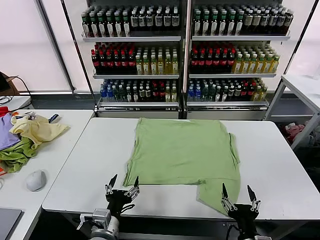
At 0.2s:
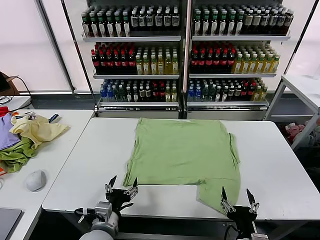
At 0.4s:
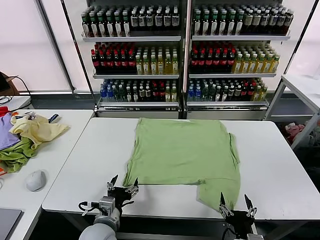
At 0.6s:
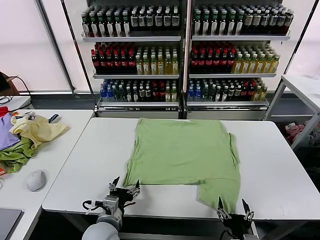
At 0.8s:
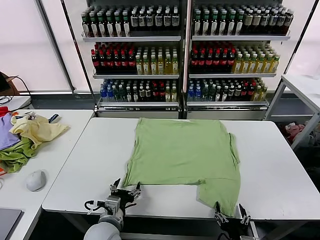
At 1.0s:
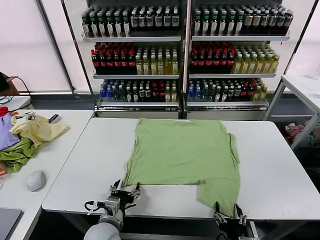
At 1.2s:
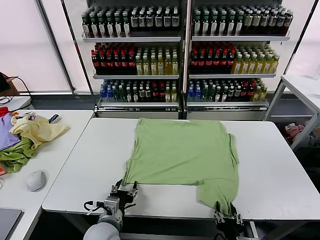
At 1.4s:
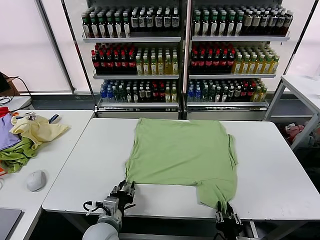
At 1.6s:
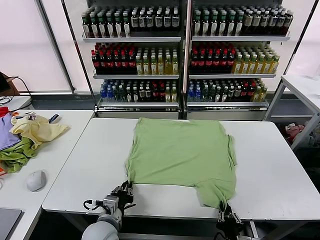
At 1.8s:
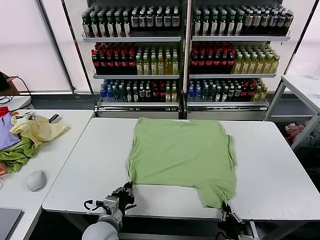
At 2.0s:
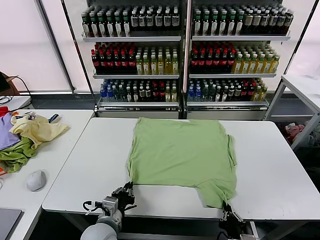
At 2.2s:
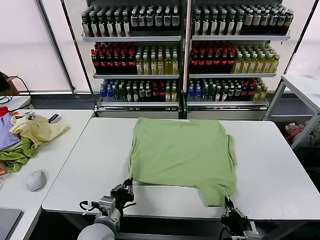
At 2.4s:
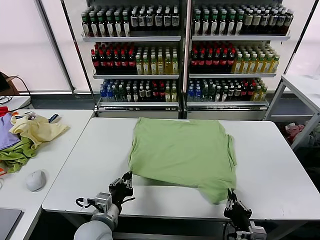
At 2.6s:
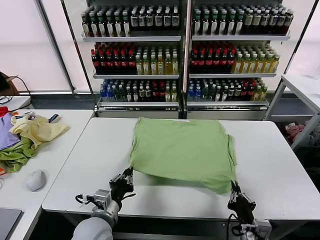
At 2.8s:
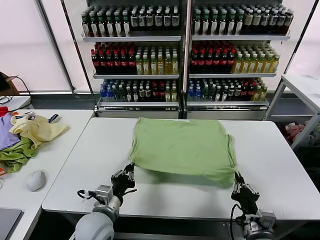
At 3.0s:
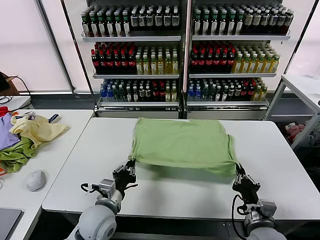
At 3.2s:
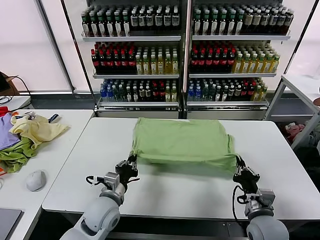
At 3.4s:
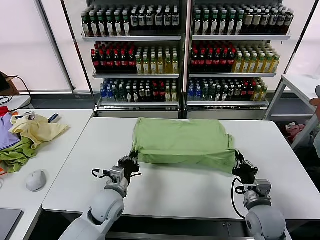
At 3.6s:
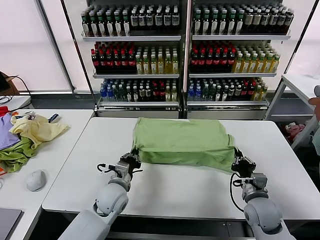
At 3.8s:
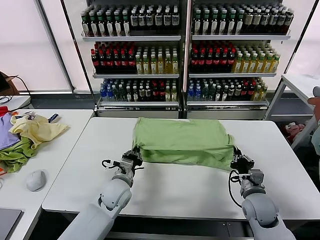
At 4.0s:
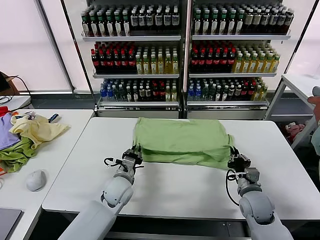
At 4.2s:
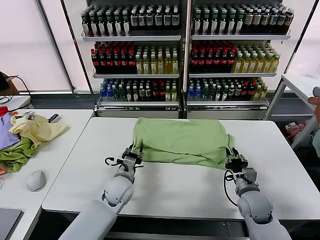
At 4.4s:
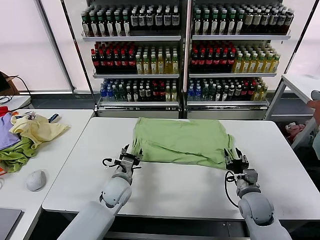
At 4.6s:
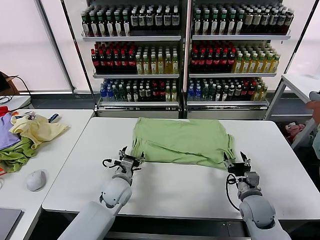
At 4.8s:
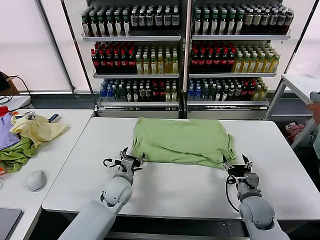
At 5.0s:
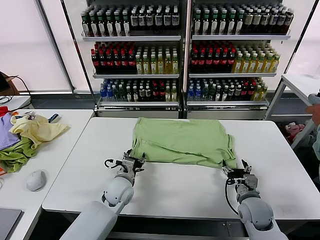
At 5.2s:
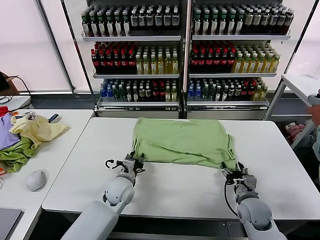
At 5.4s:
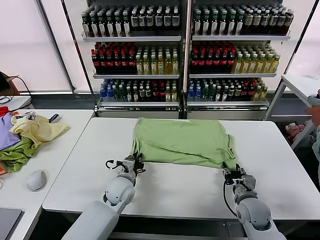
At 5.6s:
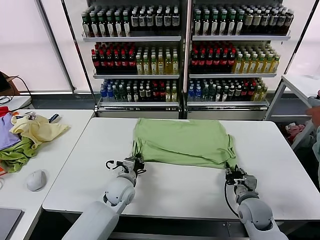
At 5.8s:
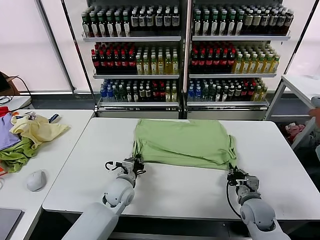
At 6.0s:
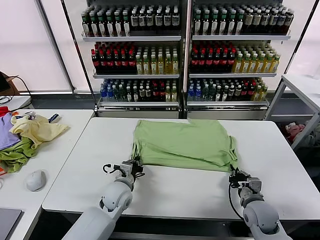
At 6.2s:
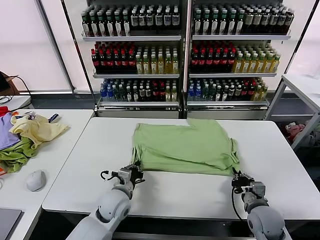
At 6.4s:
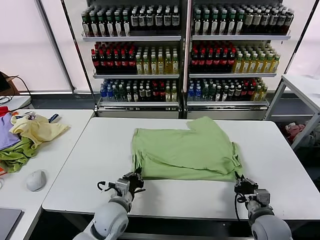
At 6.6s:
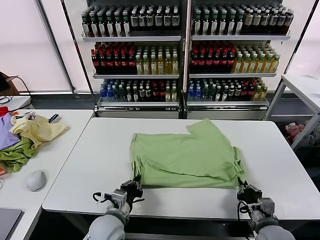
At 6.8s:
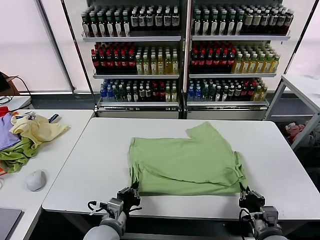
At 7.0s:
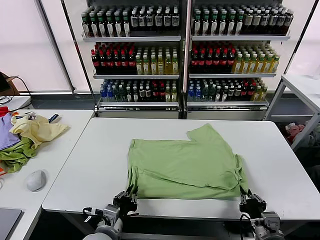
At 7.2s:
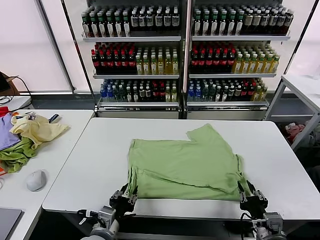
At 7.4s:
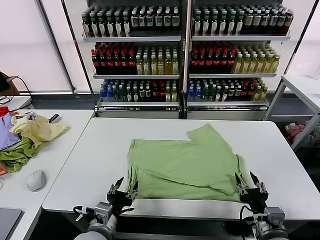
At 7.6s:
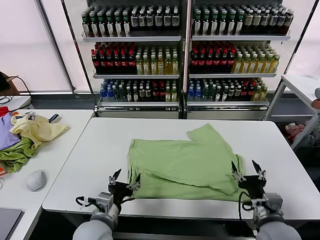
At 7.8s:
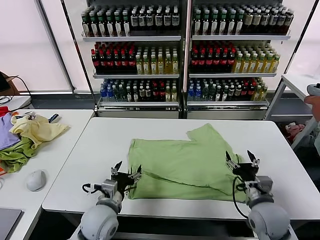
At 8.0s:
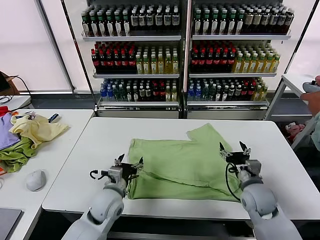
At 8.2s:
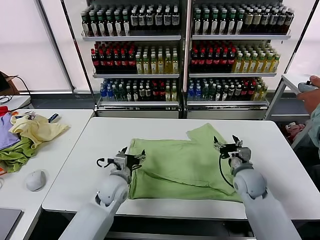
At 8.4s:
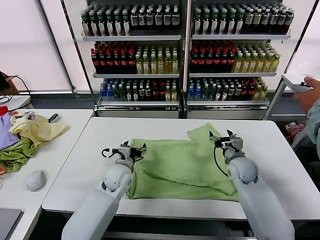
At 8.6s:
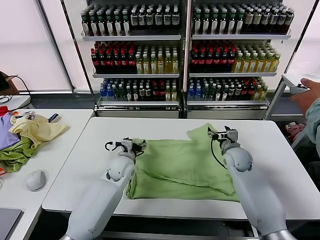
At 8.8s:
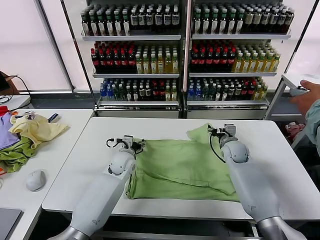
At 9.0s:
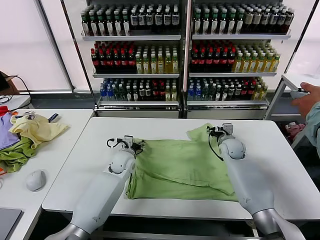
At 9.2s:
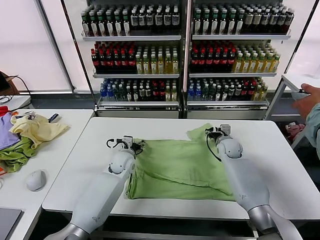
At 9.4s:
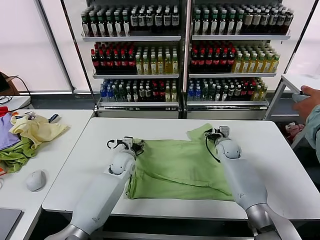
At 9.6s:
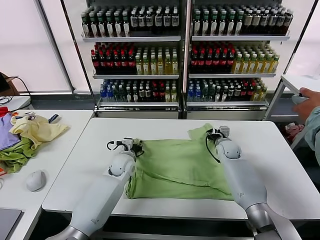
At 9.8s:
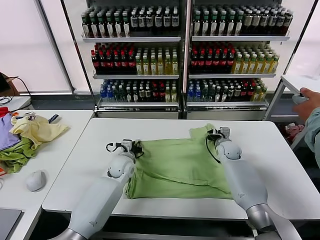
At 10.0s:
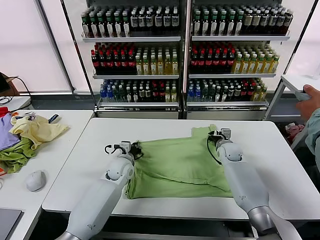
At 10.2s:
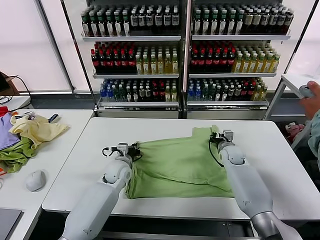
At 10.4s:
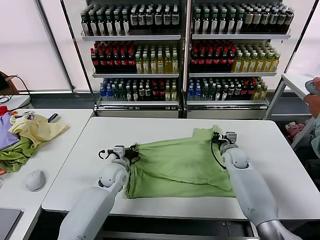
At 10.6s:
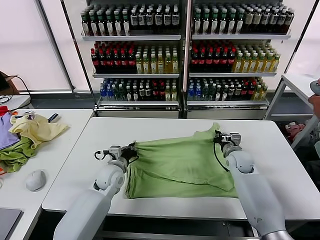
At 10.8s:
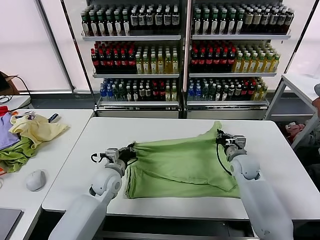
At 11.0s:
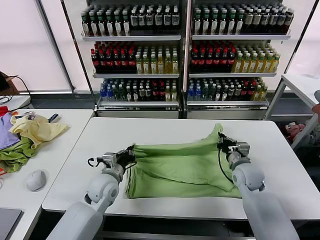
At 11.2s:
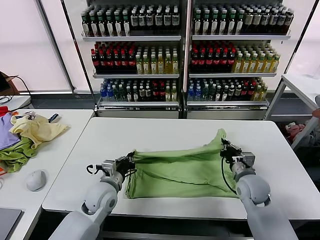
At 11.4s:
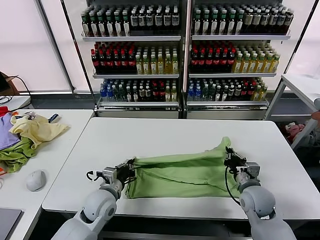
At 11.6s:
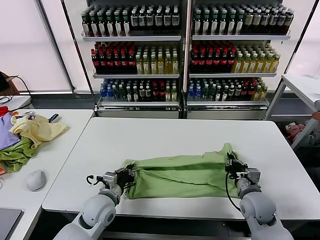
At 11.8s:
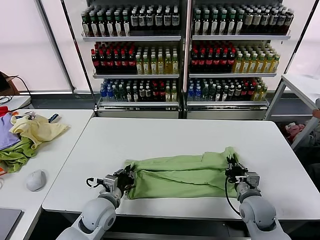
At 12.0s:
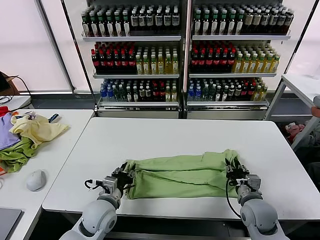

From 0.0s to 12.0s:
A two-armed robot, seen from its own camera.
Task of the whole recording: fold and organize the clothes.
Step, from 0.0s to 1.8s: use both grippers simultaneously to clamp the lower edge of the clothing fabric.
Step, from 2.0s to 4.2s: use both grippers to drag the lower edge of the fabric forward and fold it over the upper edge.
Step, from 4.6s to 7.0s: Drag the clothes downward with both gripper.
Step, from 7.2s to 10.0s: use both grippers simultaneously to clamp the upper edge of the clothing fabric.
From 1.6s to 3.0s: The right gripper moves forward, to the right and upward, roughly 15 cm, while the left gripper moves about 5 cm.
From 3.0s to 4.4s: The grippers both shift forward by some 10 cm. The left gripper opens its fingers; the right gripper opens.
From 4.4s to 6.0s: The left gripper closes. The right gripper closes up.
From 6.0s to 7.6s: The left gripper moves backward, some 15 cm, and opens its fingers. Meanwhile the right gripper goes some 10 cm upward and backward, and opens up.
From 7.6s to 9.0s: Both grippers travel together forward, some 30 cm.
From 9.0s to 10.4s: The right gripper closes its fingers. Meanwhile the left gripper ends up some 5 cm from where it was, and closes up.
From 10.4s to 12.0s: Both grippers move backward, roughly 20 cm. The right gripper opens up; the left gripper opens.

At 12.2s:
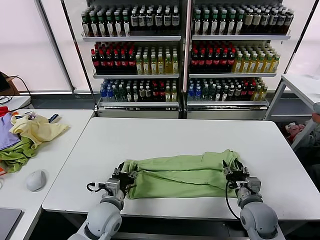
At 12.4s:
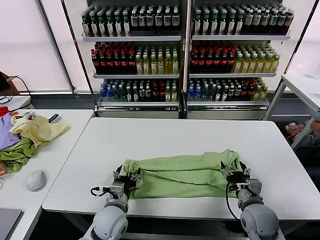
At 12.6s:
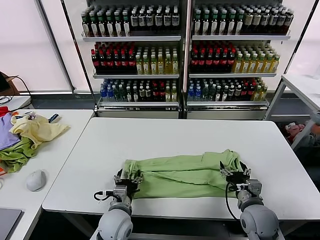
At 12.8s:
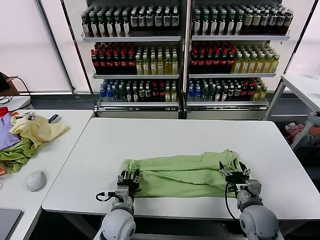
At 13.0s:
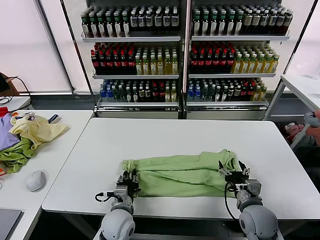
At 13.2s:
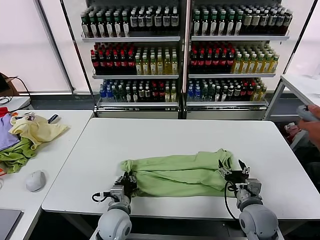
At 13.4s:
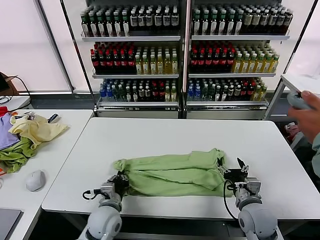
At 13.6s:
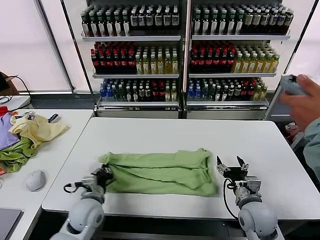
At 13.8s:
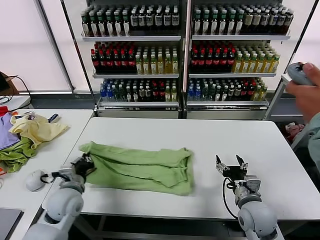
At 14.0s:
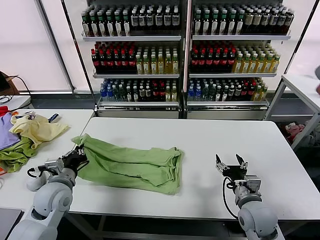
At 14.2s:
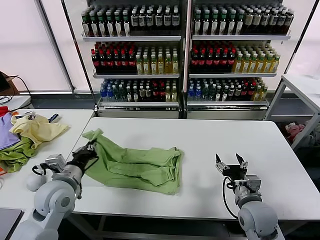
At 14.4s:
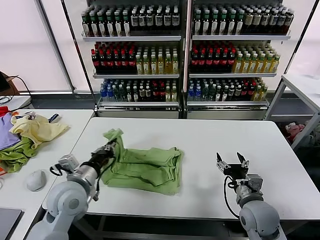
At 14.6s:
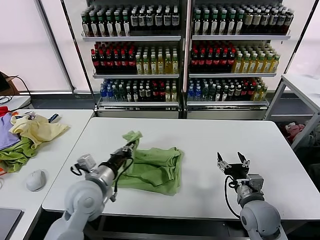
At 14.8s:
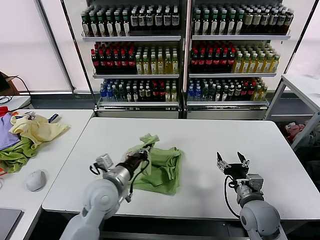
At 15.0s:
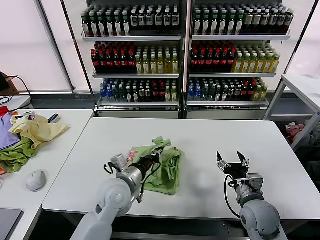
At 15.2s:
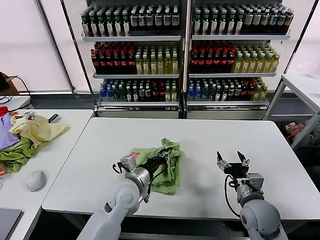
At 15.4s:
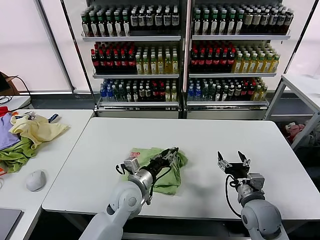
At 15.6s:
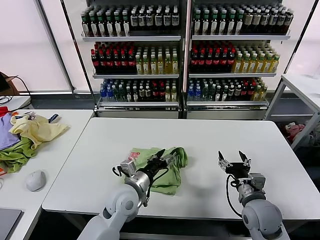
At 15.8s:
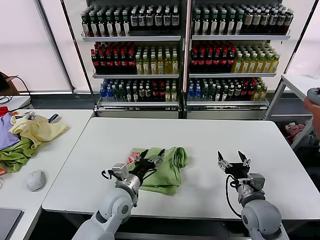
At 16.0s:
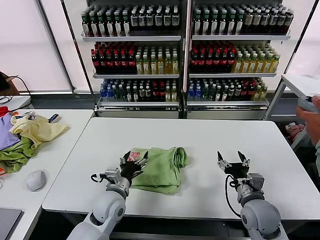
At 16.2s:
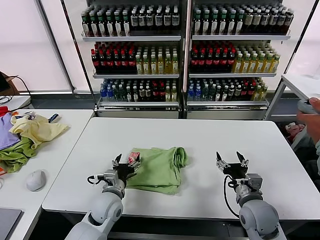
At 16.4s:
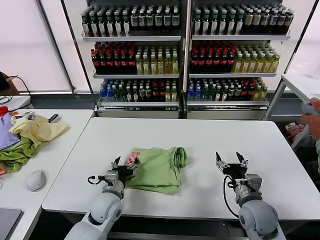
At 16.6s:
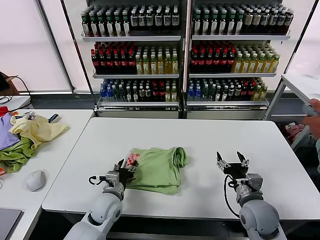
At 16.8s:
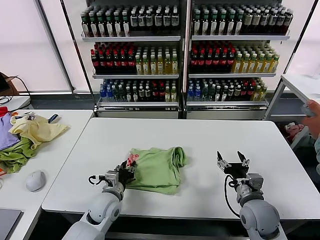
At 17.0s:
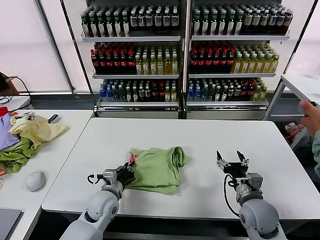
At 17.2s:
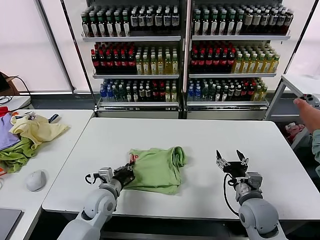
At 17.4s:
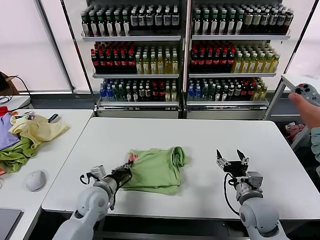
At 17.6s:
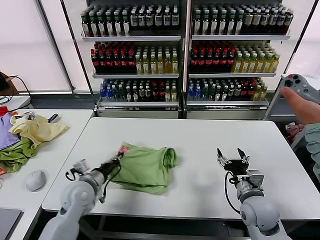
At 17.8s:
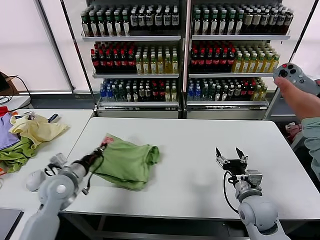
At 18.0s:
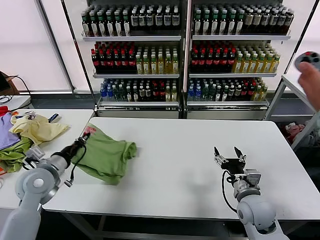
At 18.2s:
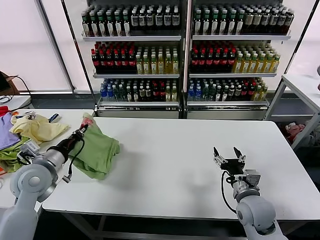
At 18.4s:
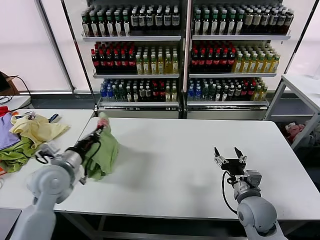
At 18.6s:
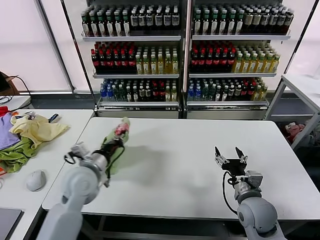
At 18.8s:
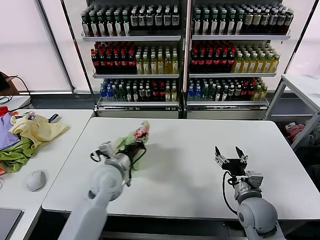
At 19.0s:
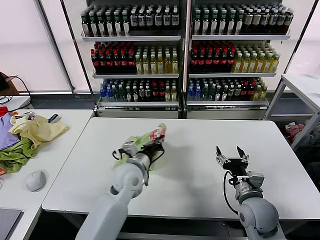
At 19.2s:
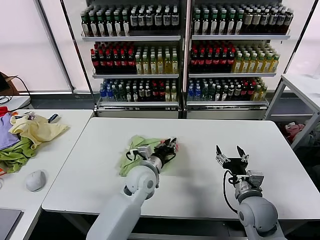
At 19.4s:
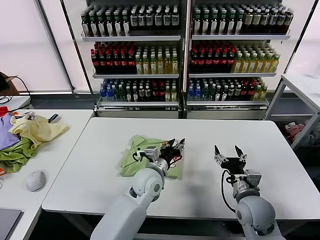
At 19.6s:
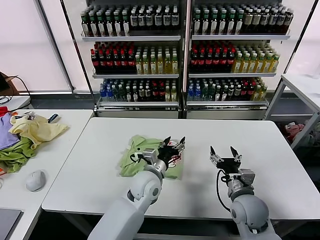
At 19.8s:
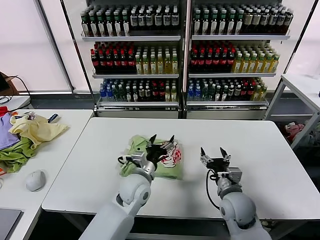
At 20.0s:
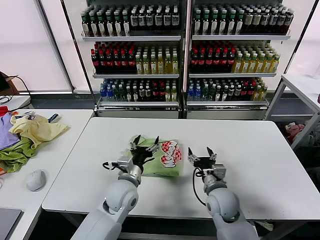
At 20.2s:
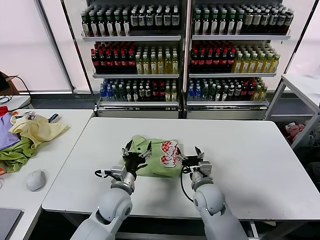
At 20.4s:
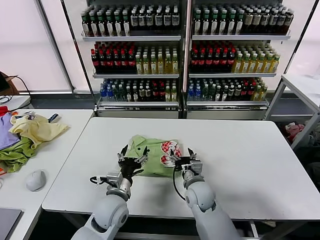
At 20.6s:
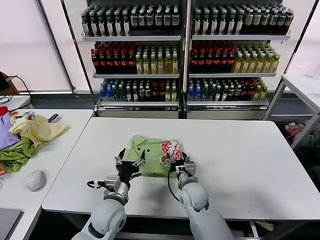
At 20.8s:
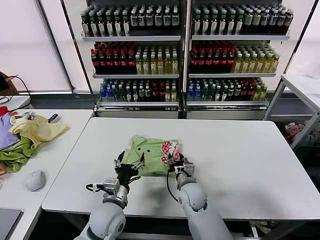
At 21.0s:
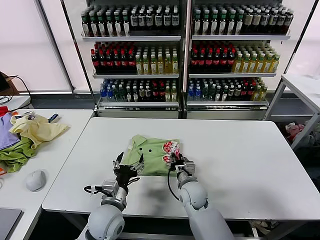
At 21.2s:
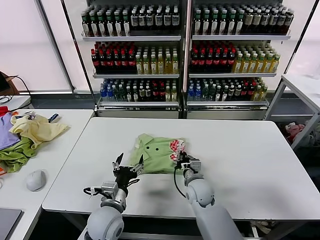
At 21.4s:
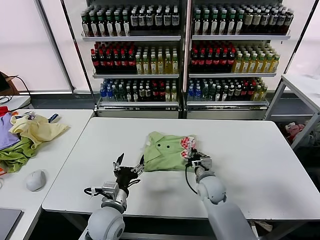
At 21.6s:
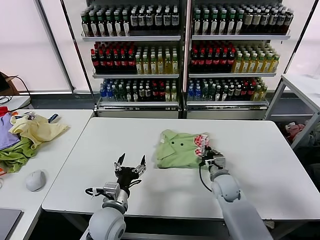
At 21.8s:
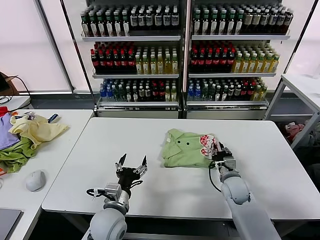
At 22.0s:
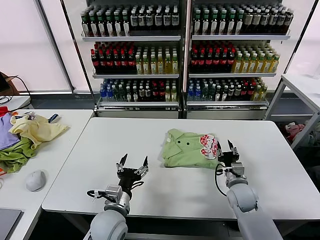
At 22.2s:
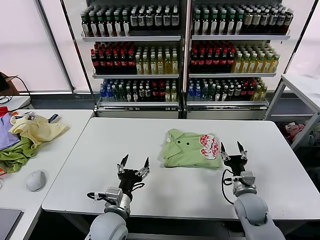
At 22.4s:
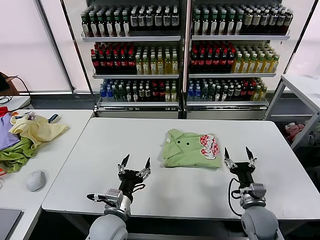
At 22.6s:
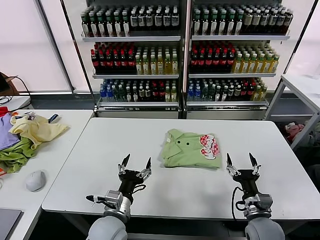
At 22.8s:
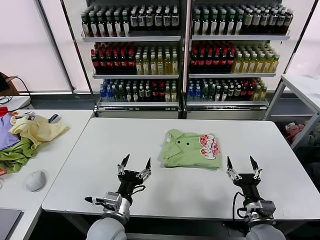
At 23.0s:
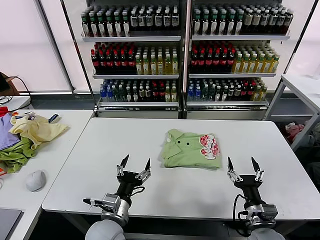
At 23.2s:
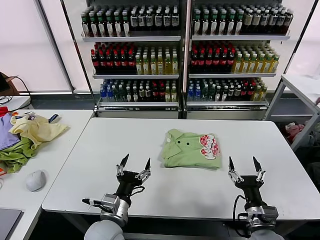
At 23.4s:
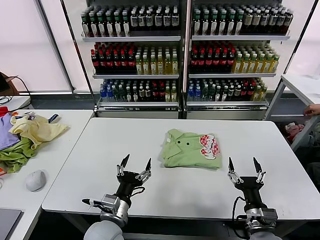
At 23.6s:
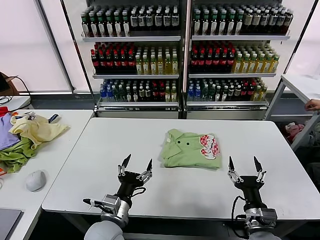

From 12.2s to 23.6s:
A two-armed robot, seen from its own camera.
Task of the whole recording: fold and organize the clothes.
Step, from 12.4s to 13.2s: use the left gripper to clamp the left edge of the fabric.
Step, from 13.4s to 15.4s: use the left gripper to drag the left edge of the fabric to the left and folds it over the right edge.
Step, from 15.6s to 19.2s: Flip the folded clothes over with left gripper.
Step, from 19.4s to 21.8s: Drag the clothes to the center of the table.
From 12.2s to 13.6s: The left gripper is displaced to the left by roughly 5 cm, and closes.
From 13.6s to 15.0s: The left gripper travels to the right and upward by roughly 10 cm.
From 15.0s to 16.4s: The left gripper is displaced downward by some 10 cm, and opens its fingers.
From 16.4s to 17.8s: The left gripper travels to the left and upward by about 15 cm, and closes its fingers.
From 17.8s to 19.4s: The left gripper shifts some 25 cm to the right, and opens up.
From 19.4s to 20.8s: The left gripper is displaced to the left and backward by some 15 cm, and opens up; the right gripper is displaced to the left, forward and downward by some 20 cm.
From 20.8s to 22.2s: The right gripper travels to the right by some 20 cm, and closes and opens again.
From 22.2s to 23.6s: The right gripper is displaced backward by about 15 cm.
